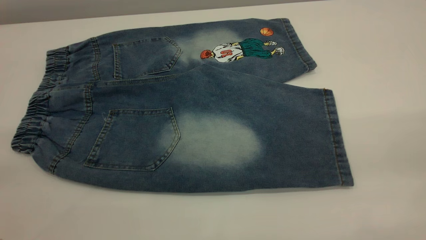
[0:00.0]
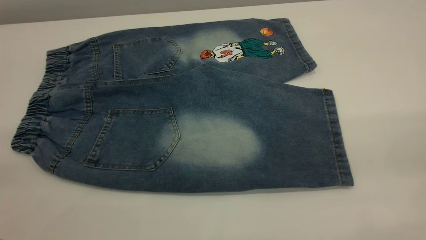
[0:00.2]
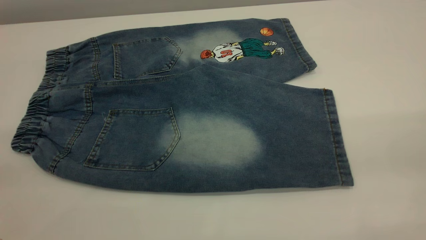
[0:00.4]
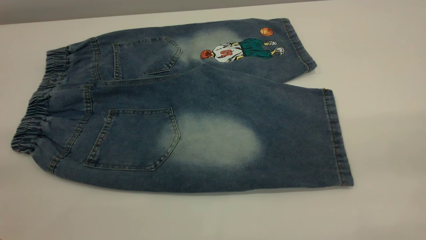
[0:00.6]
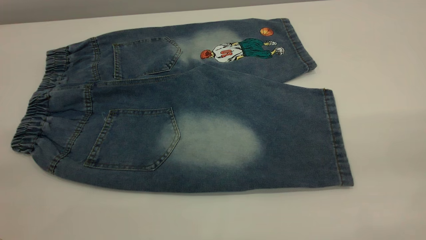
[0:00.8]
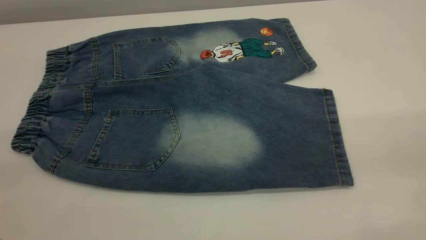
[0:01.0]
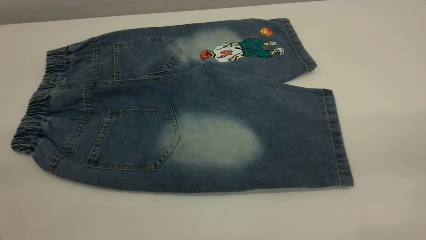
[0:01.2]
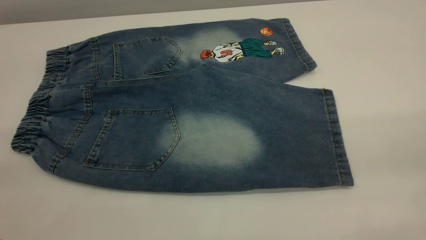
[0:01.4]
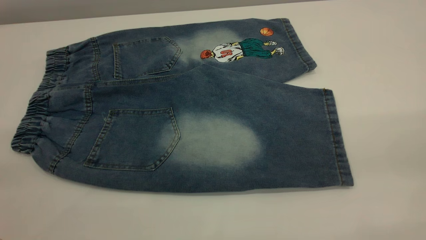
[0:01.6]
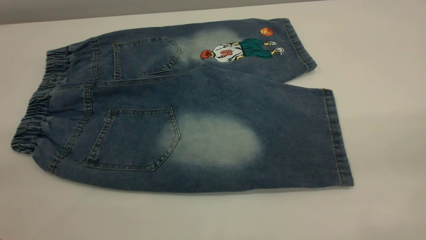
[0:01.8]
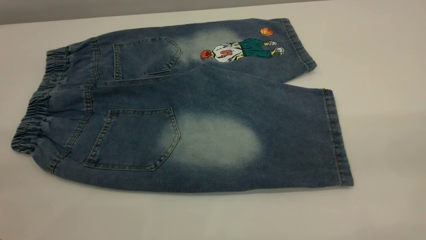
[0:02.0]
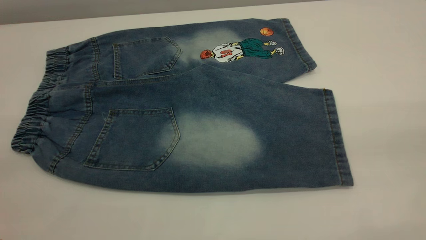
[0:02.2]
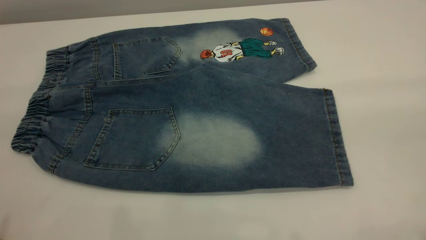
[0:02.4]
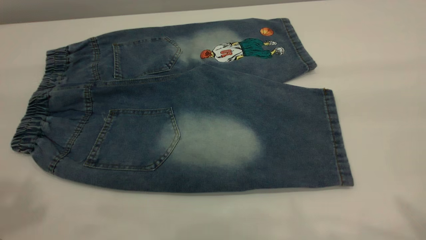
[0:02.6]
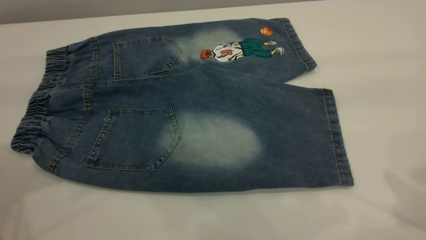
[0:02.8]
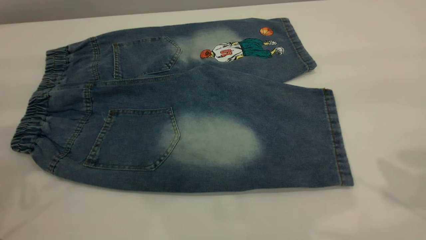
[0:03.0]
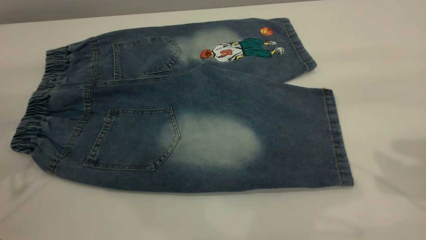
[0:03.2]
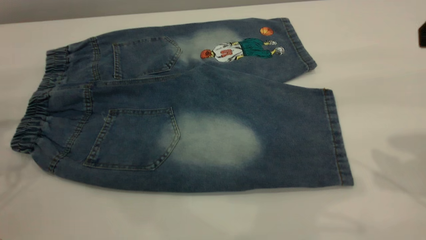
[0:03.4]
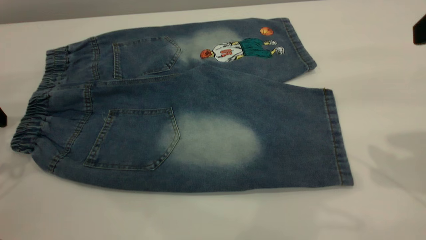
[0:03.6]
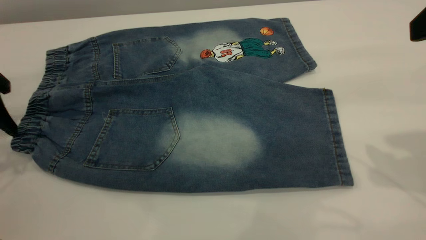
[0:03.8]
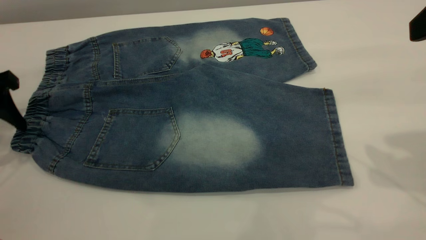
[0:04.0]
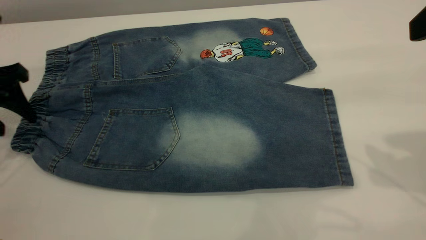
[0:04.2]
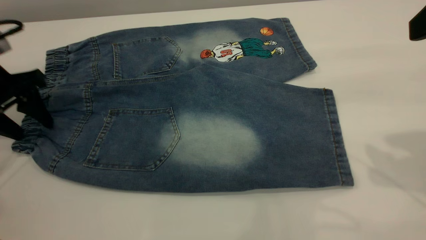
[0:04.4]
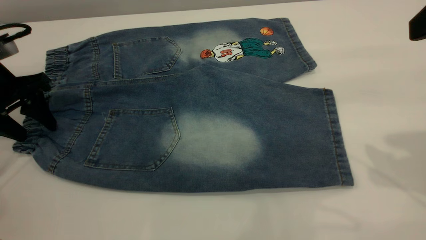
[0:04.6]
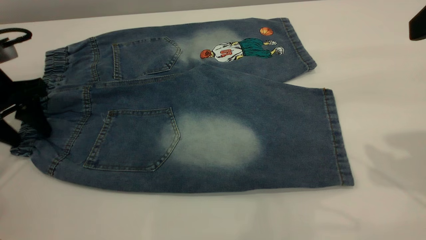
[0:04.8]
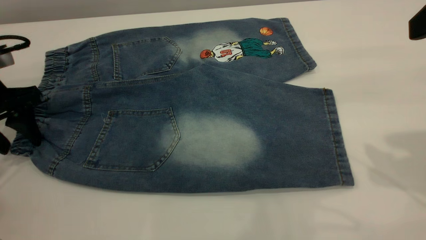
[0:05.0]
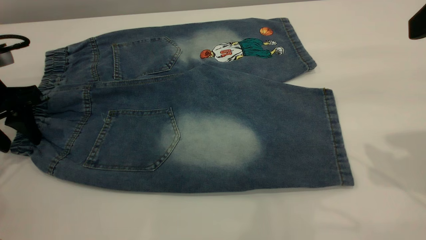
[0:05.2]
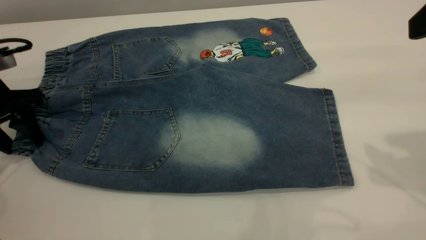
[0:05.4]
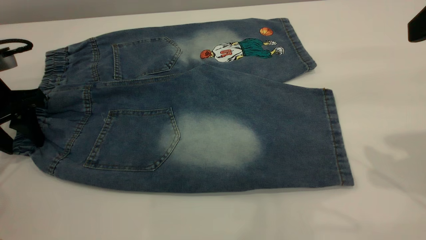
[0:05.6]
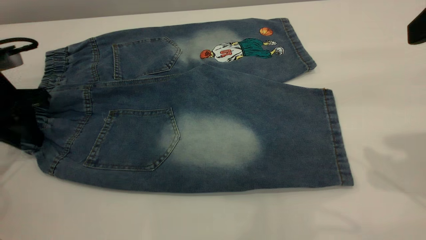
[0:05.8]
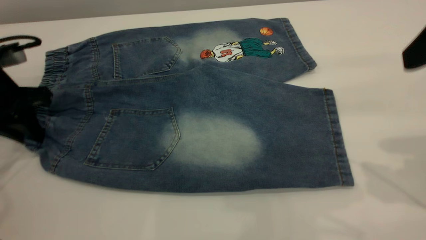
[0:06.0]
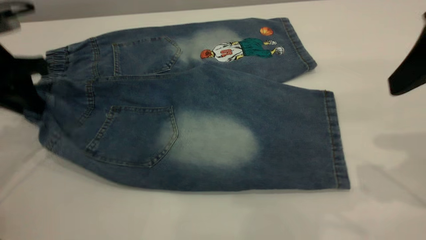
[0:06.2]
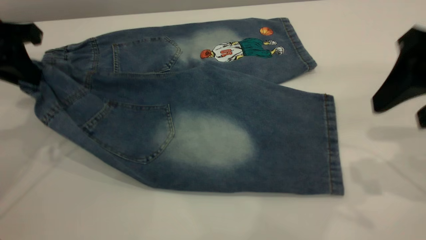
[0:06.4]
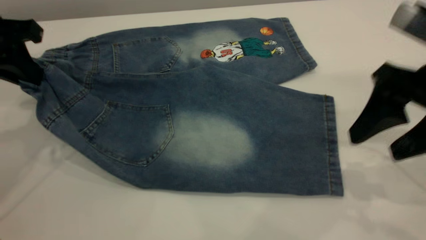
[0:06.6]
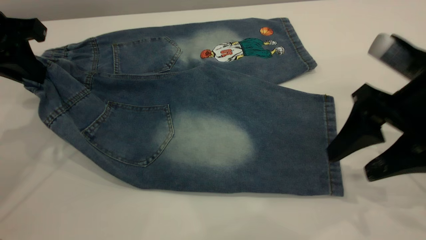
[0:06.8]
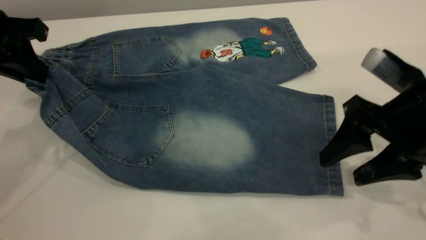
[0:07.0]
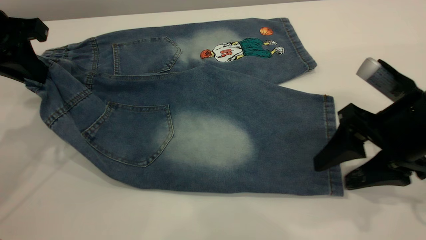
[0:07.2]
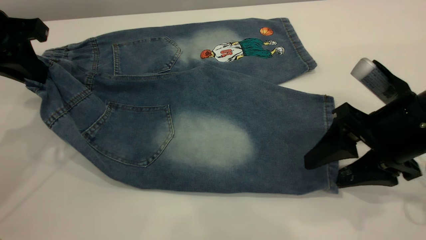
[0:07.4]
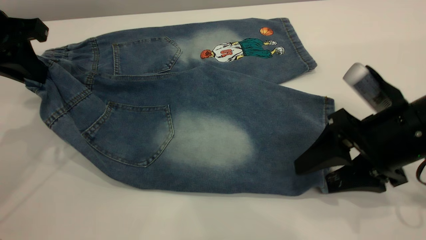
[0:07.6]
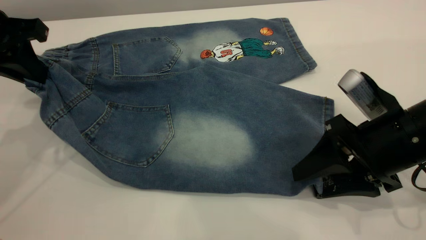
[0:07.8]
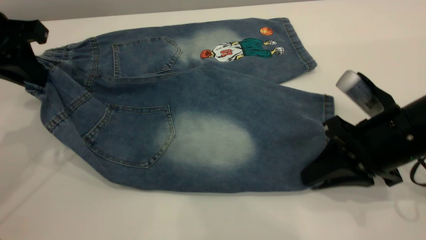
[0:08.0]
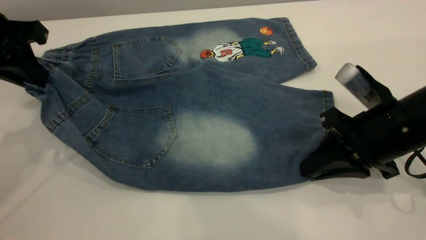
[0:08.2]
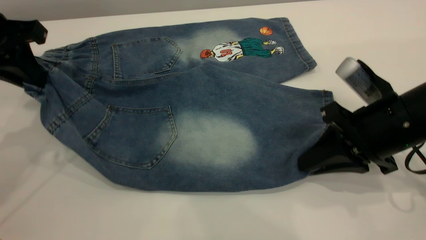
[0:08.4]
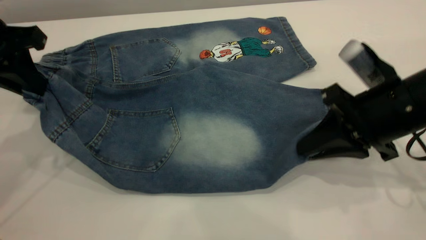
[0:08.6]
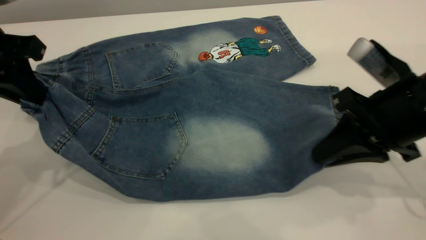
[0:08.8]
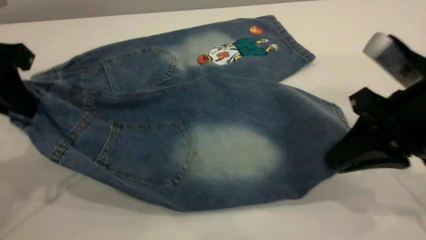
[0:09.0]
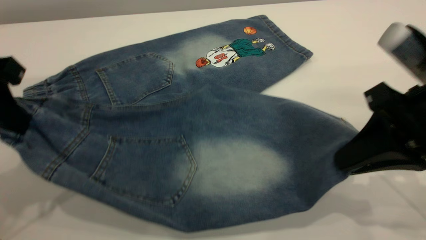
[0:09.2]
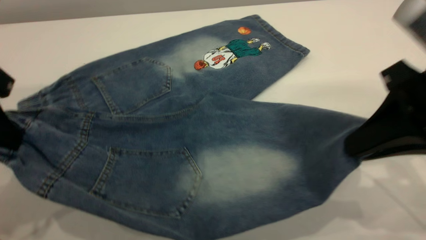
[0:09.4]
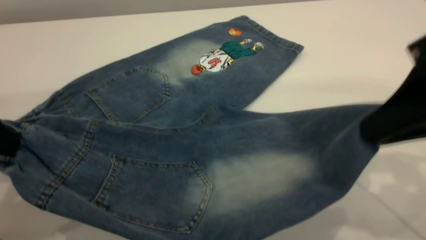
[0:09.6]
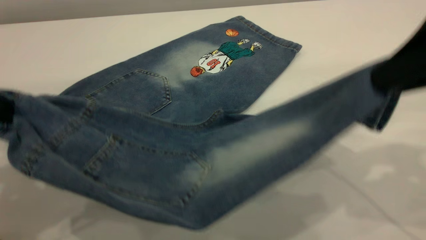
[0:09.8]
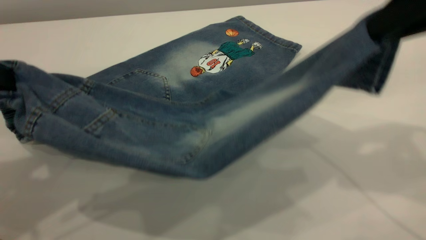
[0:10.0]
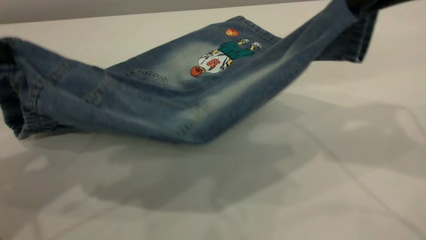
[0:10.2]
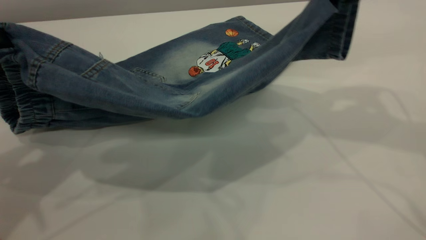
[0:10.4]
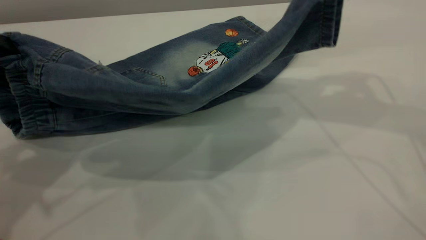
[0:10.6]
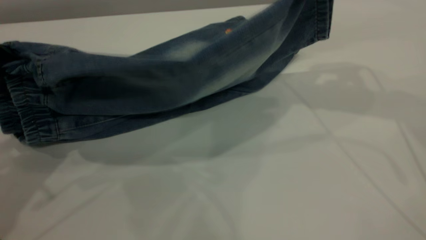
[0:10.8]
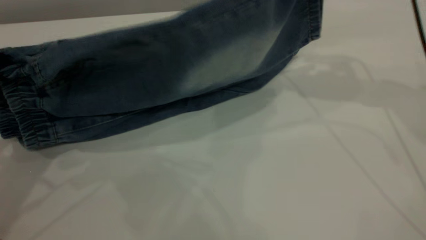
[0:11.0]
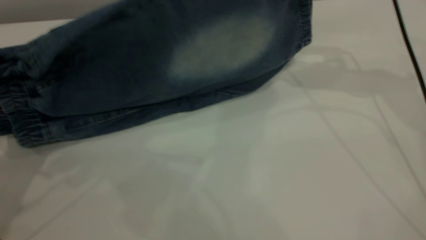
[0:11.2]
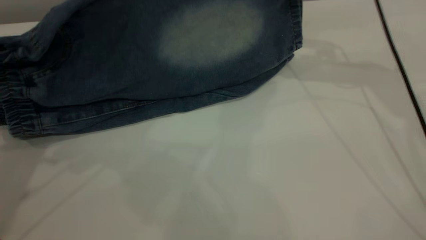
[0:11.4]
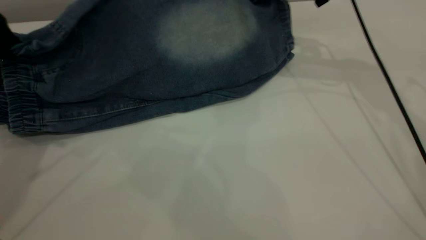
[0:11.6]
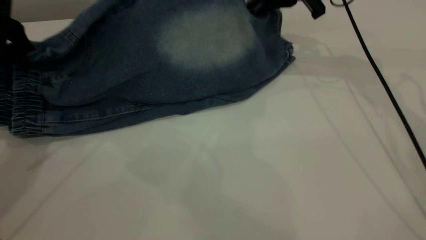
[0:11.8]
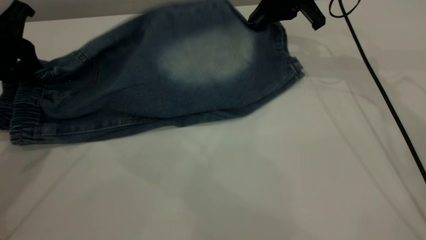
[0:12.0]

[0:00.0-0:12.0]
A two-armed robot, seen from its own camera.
0:00.0 to 0:01.6: Both grippers stay about where they are.
0:03.0 to 0:04.4: The left gripper travels downward and forward by about 15 cm.
0:04.4 to 0:06.0: The left gripper closes up.
0:06.0 to 0:07.6: The right gripper travels downward by approximately 20 cm, while the left gripper shifts roughly 10 cm upward.
0:07.6 to 0:09.0: The left gripper goes roughly 5 cm backward. The right gripper heads upward, covering some 5 cm, and closes up.
0:09.0 to 0:10.4: The right gripper goes roughly 20 cm upward and forward; the left gripper moves some 5 cm.
0:10.4 to 0:12.0: Both grippers move forward and downward, about 15 cm.

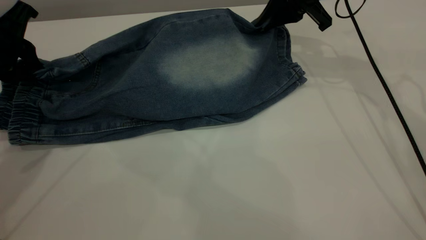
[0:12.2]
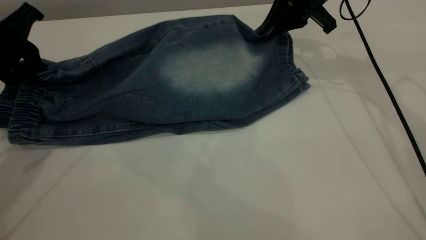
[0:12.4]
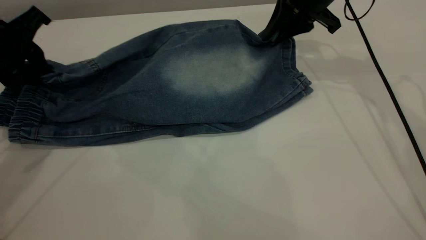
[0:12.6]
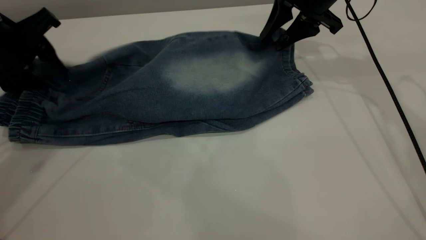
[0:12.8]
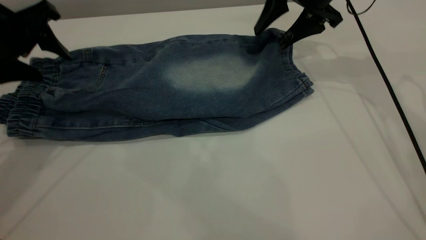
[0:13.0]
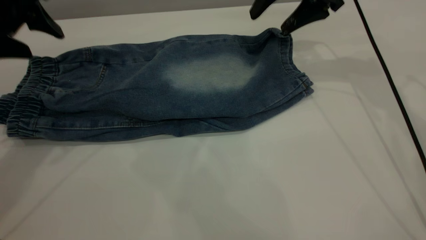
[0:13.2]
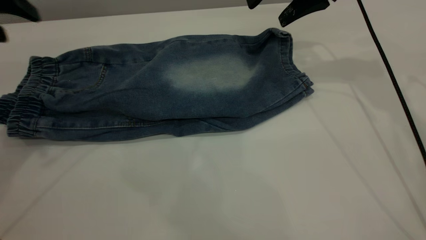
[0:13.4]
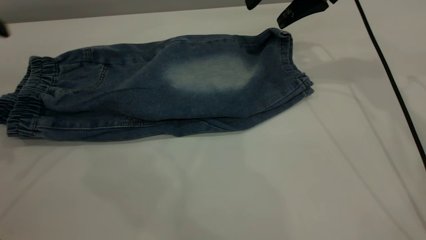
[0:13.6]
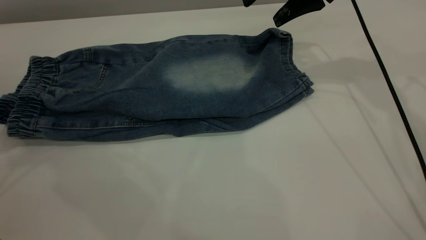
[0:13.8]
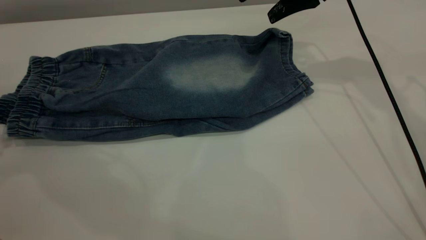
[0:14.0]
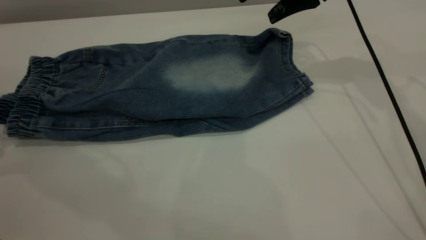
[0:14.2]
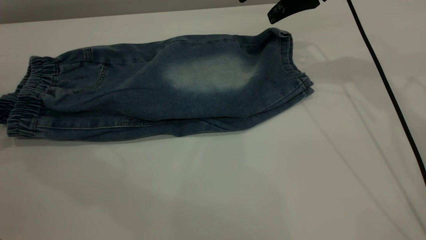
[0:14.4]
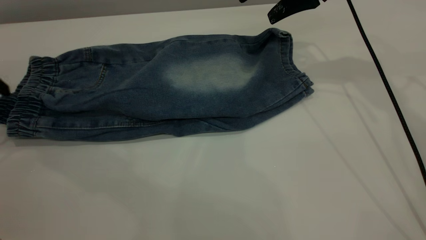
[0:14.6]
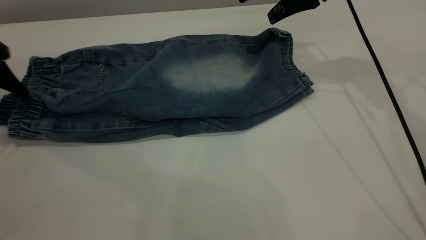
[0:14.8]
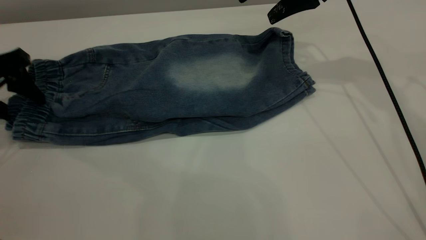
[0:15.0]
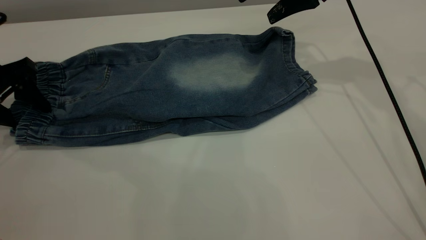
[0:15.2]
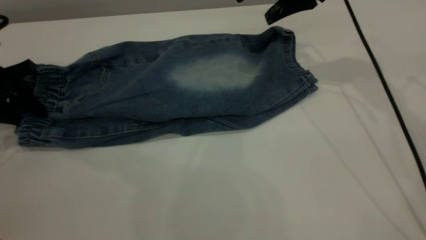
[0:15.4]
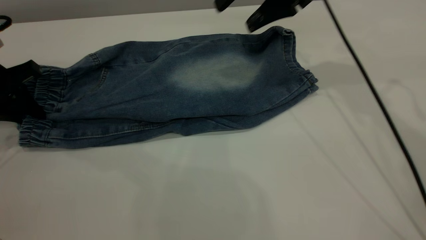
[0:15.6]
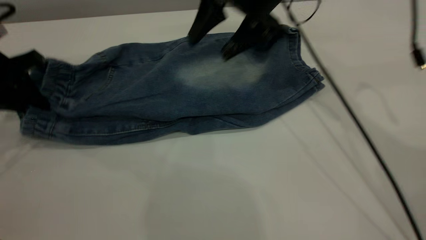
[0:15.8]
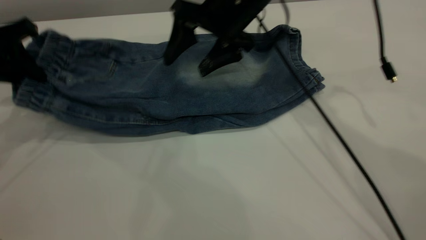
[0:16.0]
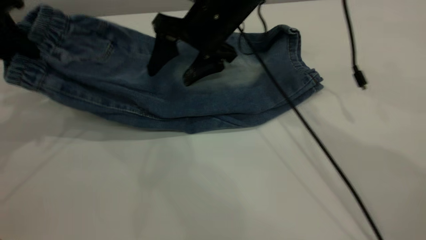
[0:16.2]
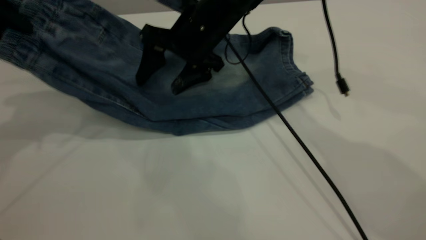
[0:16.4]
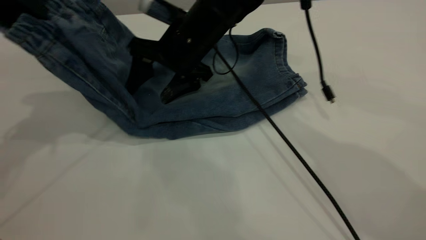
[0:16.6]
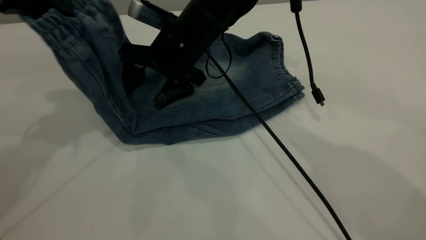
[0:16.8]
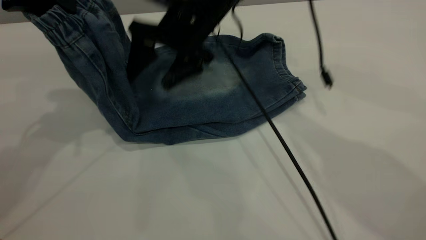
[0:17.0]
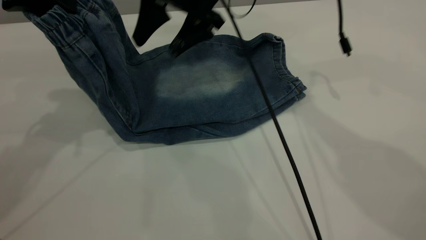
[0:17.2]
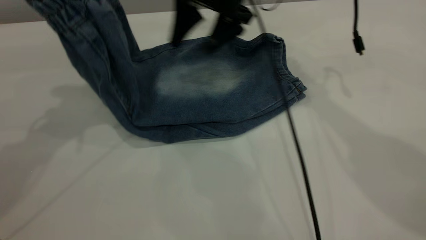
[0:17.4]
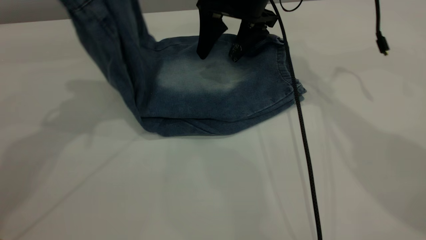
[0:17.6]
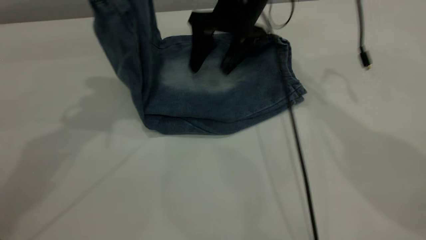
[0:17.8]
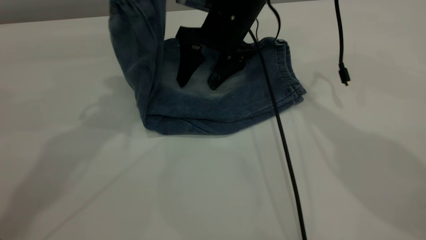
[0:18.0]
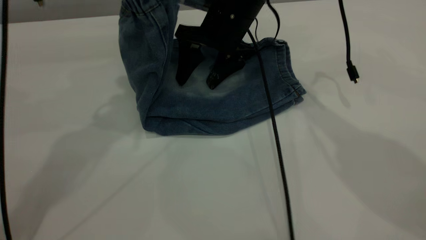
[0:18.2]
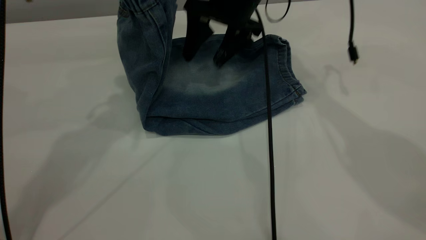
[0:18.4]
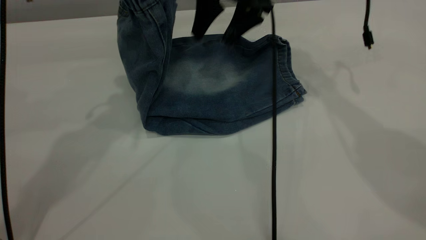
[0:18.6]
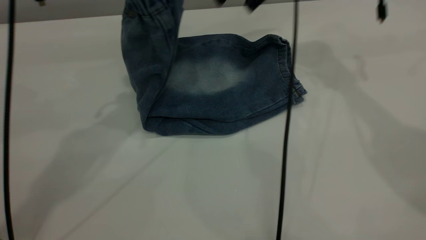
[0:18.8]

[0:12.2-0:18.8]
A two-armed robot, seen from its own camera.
0:12.2 to 0:13.8: The right gripper ends up about 5 cm from where it was, and opens up. The left gripper is displaced to the left, backward and upward by roughly 15 cm, and opens its fingers.
0:13.8 to 0:15.4: The left gripper travels downward and forward by approximately 15 cm, and closes its fingers.
0:15.4 to 0:17.2: The right gripper is displaced to the left by some 15 cm; the left gripper travels upward and to the right by roughly 20 cm.
0:17.2 to 0:18.8: The right gripper shifts approximately 15 cm to the right and forward, while the left gripper shifts some 10 cm to the right.
